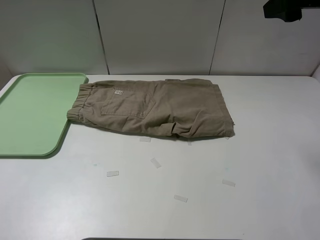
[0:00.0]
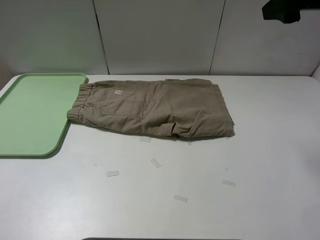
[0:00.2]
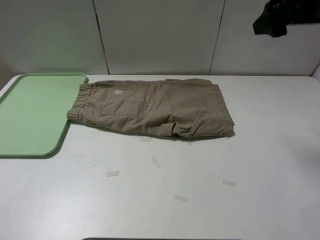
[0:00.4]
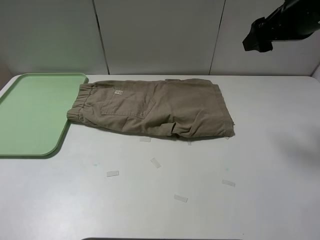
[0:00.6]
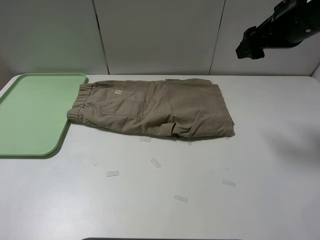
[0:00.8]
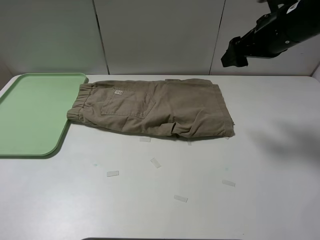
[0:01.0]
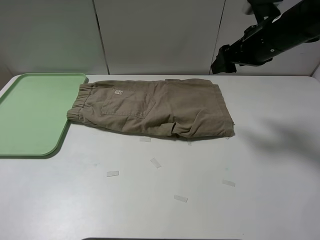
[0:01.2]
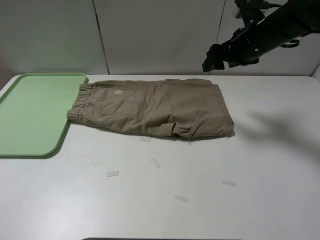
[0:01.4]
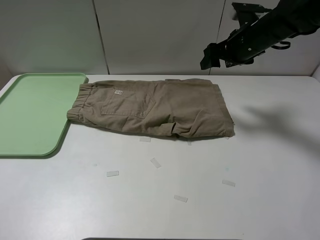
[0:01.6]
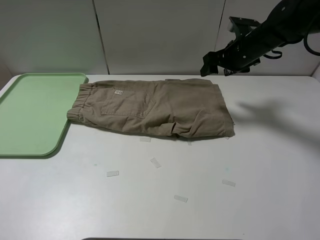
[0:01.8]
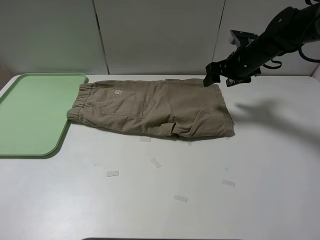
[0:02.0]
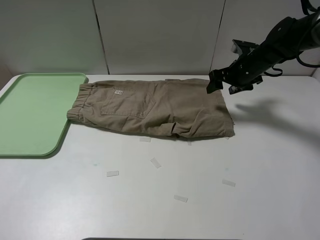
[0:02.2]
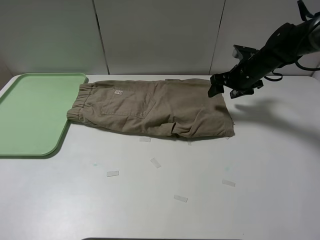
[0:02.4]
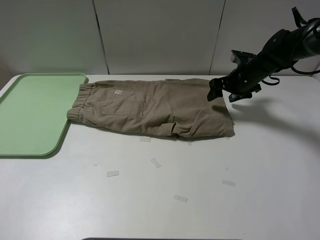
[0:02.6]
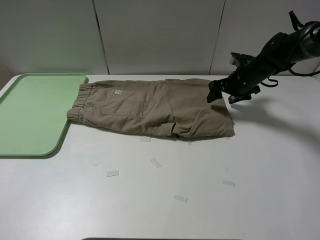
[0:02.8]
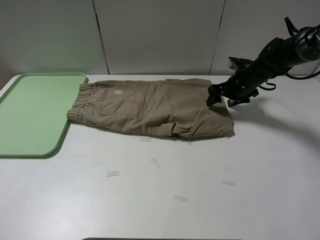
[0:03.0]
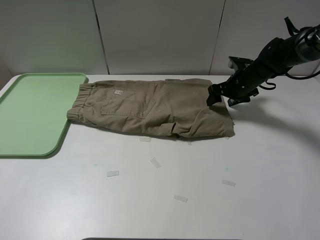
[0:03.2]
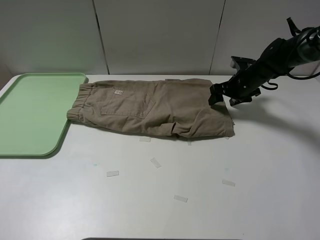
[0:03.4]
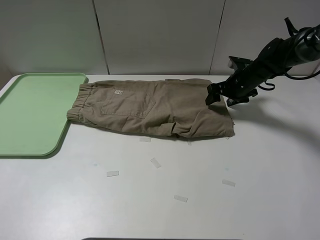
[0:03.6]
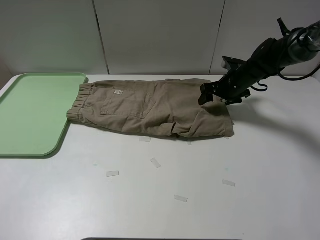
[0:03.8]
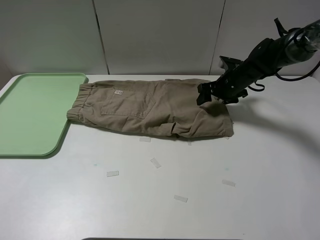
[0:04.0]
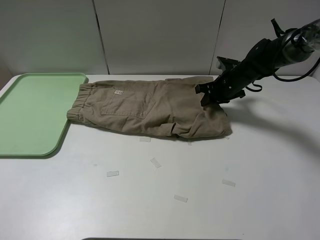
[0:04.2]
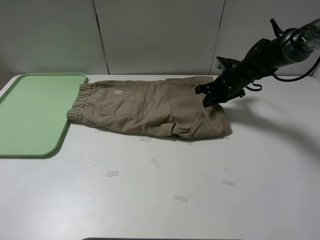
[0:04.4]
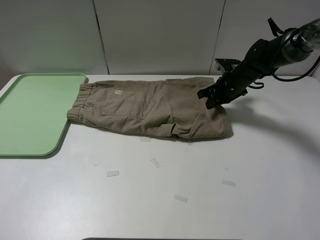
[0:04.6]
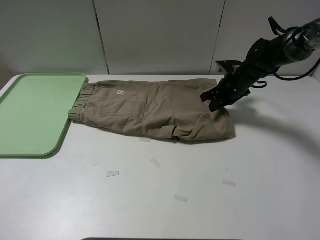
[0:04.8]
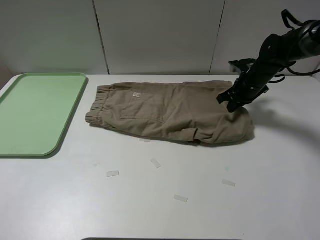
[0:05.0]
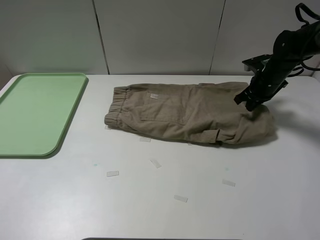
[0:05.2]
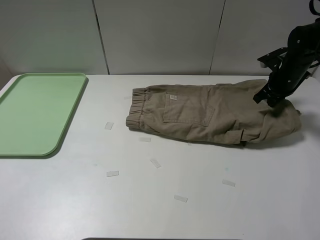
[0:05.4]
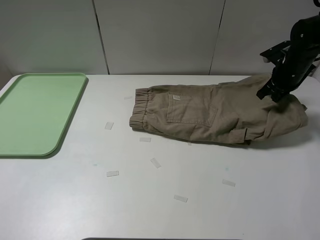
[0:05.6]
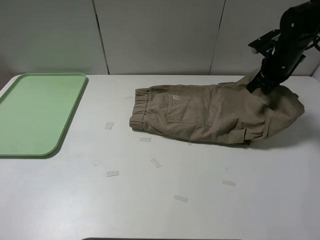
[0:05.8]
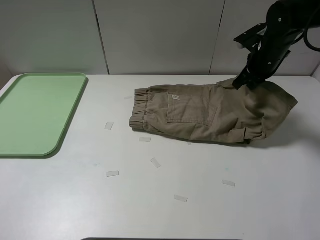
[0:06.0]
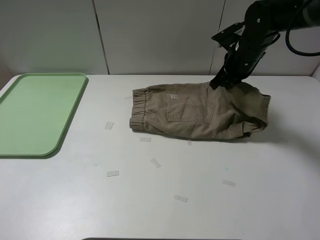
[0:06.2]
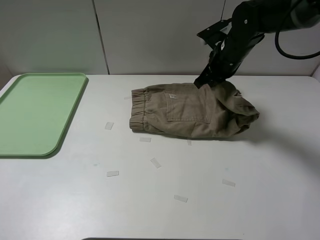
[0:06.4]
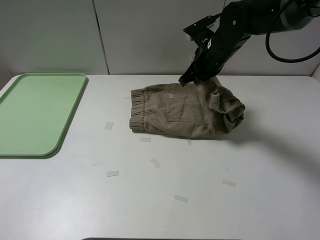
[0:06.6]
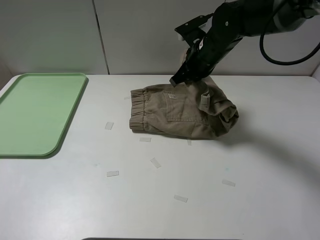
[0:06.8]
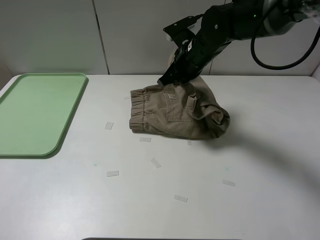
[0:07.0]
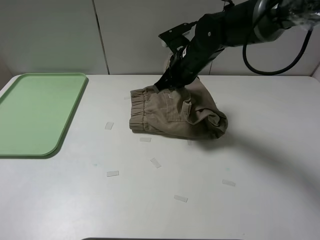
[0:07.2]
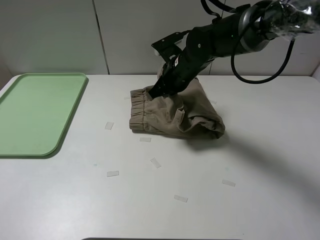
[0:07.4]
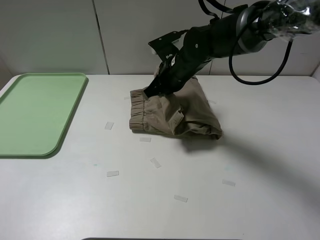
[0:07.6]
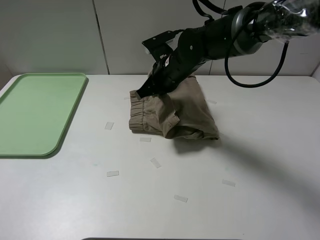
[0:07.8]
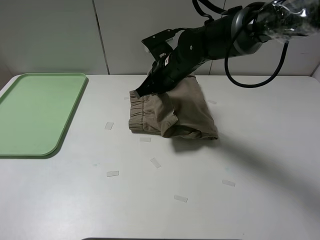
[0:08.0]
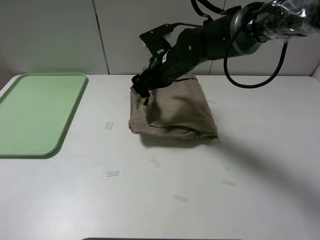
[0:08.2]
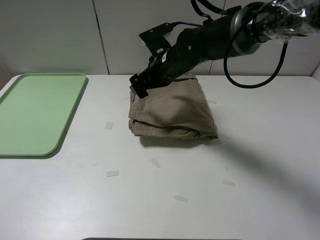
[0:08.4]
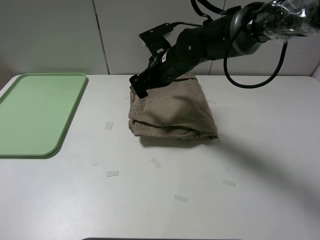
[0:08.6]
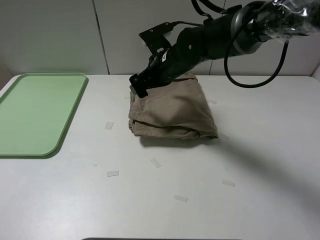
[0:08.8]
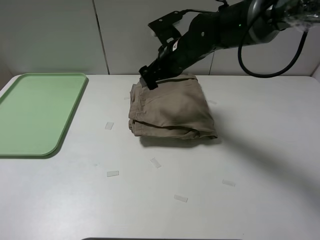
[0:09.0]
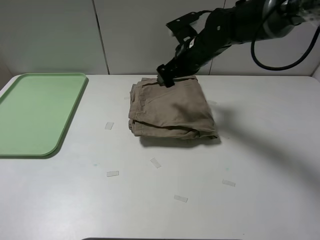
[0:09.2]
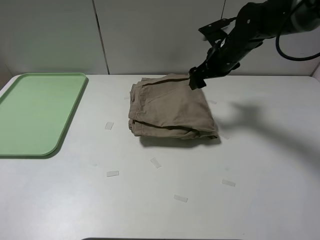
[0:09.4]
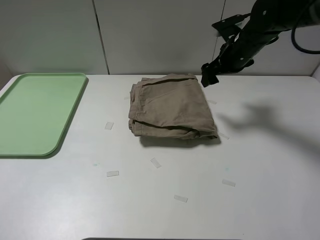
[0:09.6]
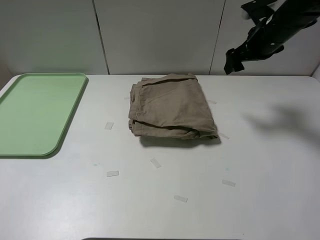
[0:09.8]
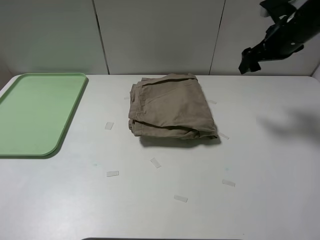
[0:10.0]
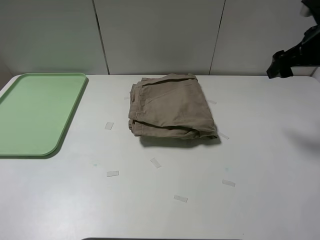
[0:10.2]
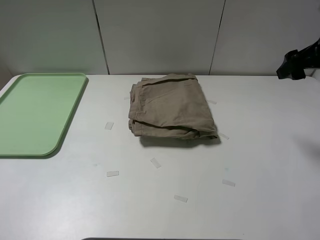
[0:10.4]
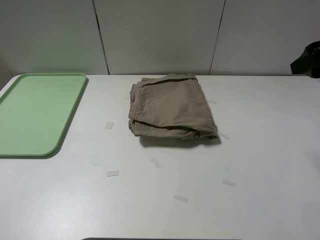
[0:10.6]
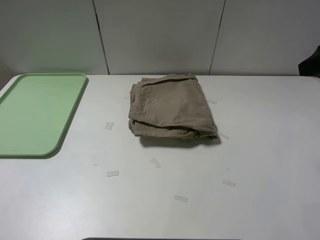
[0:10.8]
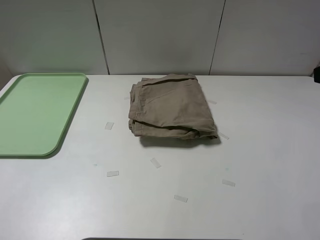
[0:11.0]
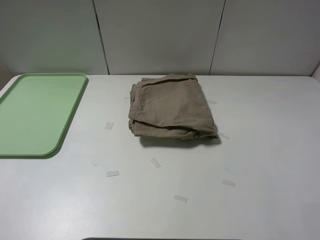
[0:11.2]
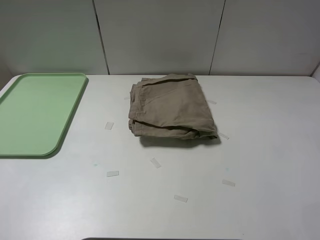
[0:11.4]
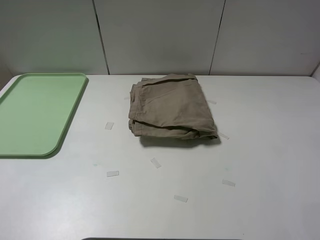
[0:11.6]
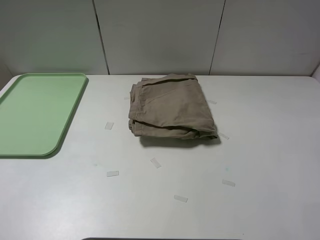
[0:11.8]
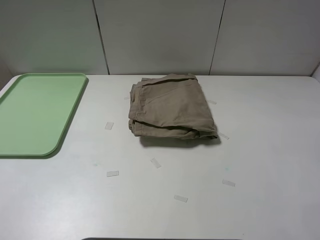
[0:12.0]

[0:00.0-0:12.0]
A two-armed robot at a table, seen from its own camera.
Task of the whole recording: fold the khaki jeans in half with two grippers, then fold them in half again, and use the left claw to place the folded fold khaki jeans on the tray.
Step, 0:00.0 to 0:04.4: Grasp the khaki trousers with the right gripper.
Step, 0:04.6 to 0:08.4: Fold the khaki trousers from right to left with the right gripper.
0:00.0 to 0:01.6: The right gripper moves downward and forward, about 20 cm.
0:01.6 to 0:03.0: The right gripper travels downward by some 15 cm.
0:03.0 to 0:04.4: The right gripper closes its fingers.
0:04.4 to 0:06.0: The right gripper is displaced upward by roughly 10 cm, and reaches roughly 10 cm to the right, then returns.
0:06.0 to 0:07.6: The right gripper is displaced to the left by approximately 20 cm.
0:07.6 to 0:09.0: The right gripper opens up.
0:09.0 to 0:10.4: The right gripper travels to the right by about 25 cm.
0:10.4 to 0:12.0: The right gripper goes approximately 25 cm backward.

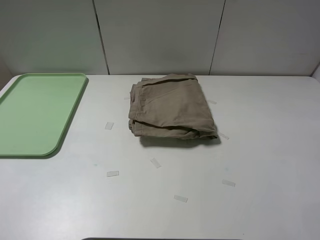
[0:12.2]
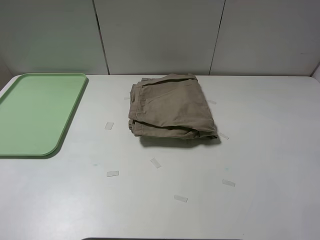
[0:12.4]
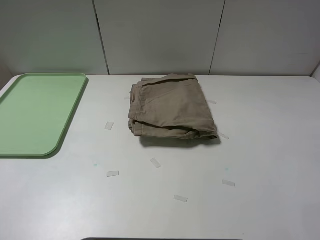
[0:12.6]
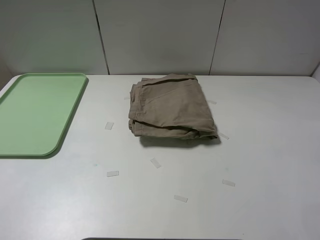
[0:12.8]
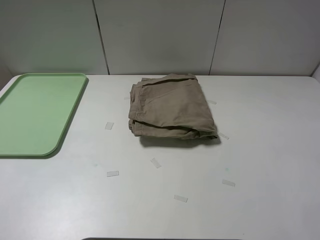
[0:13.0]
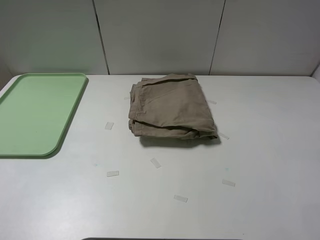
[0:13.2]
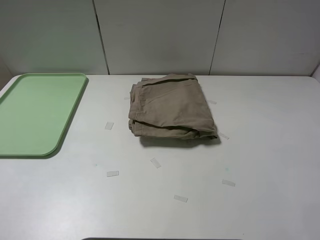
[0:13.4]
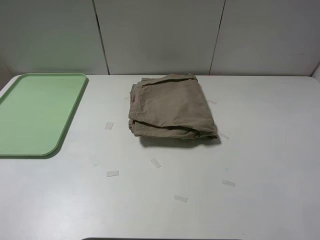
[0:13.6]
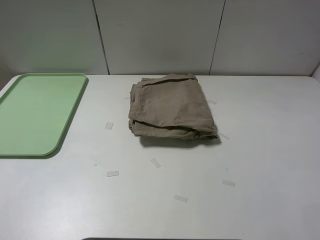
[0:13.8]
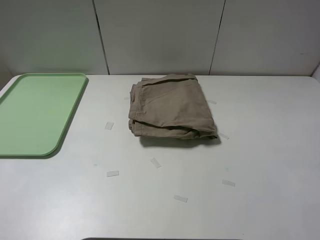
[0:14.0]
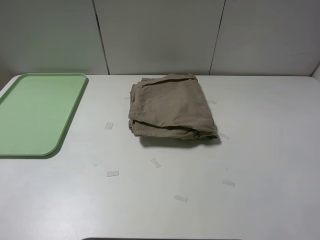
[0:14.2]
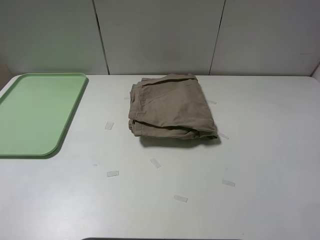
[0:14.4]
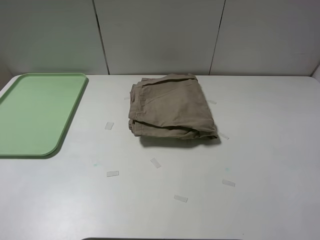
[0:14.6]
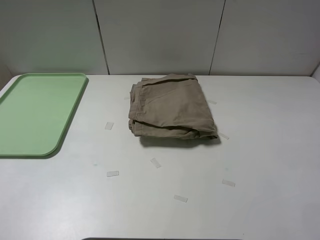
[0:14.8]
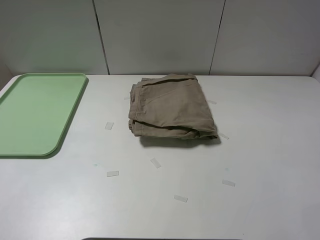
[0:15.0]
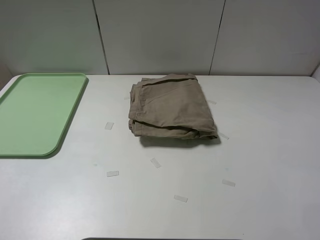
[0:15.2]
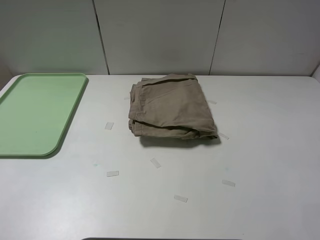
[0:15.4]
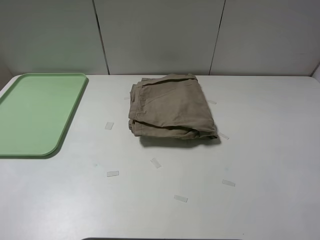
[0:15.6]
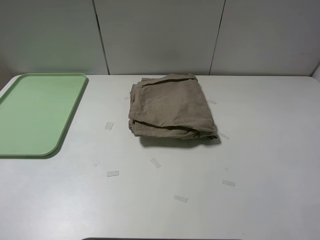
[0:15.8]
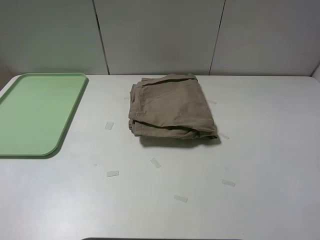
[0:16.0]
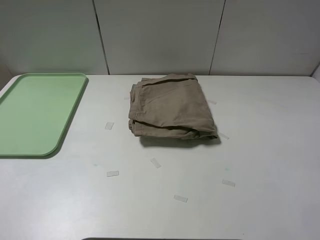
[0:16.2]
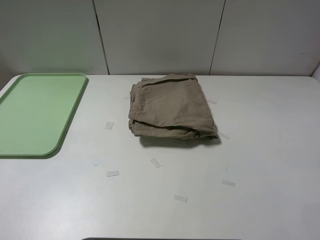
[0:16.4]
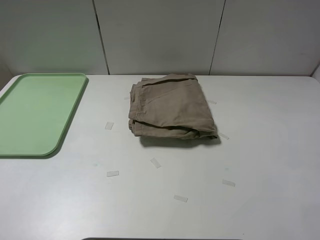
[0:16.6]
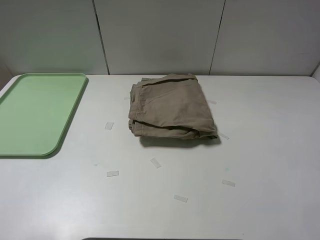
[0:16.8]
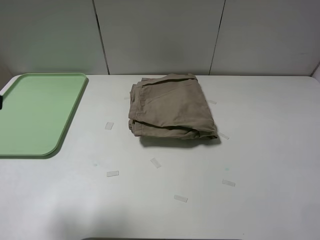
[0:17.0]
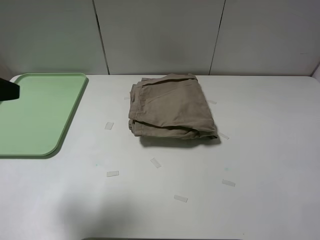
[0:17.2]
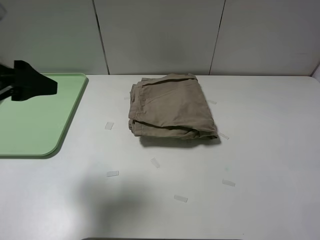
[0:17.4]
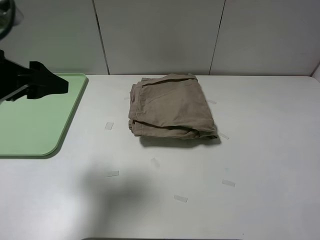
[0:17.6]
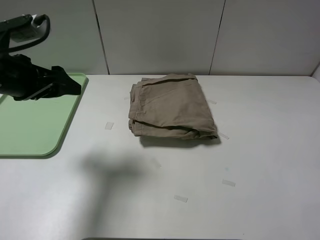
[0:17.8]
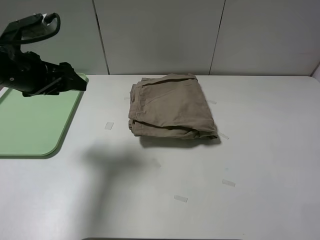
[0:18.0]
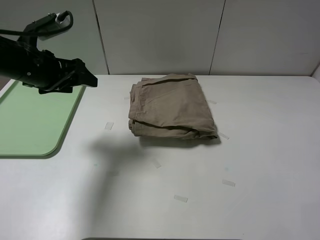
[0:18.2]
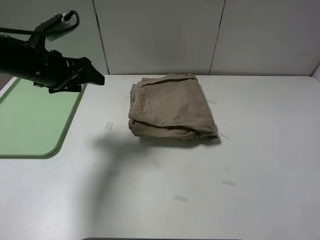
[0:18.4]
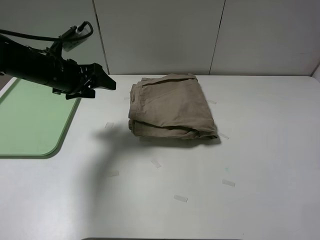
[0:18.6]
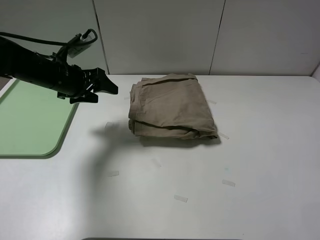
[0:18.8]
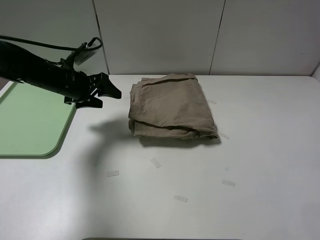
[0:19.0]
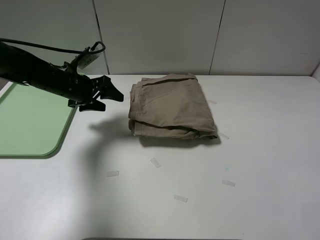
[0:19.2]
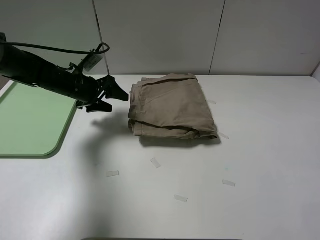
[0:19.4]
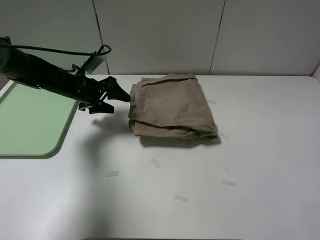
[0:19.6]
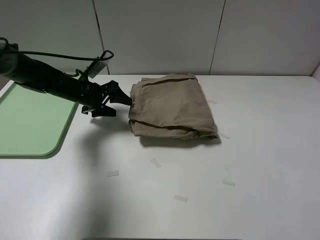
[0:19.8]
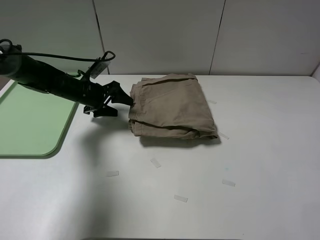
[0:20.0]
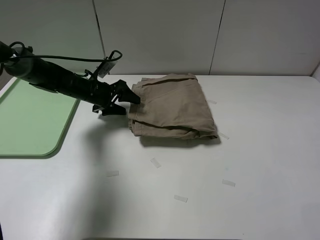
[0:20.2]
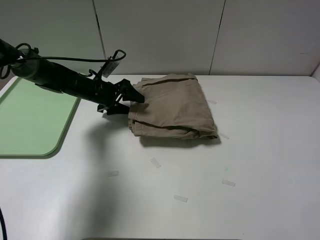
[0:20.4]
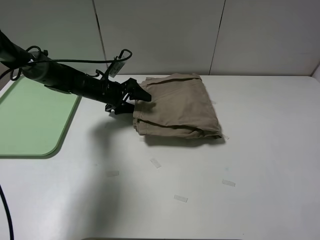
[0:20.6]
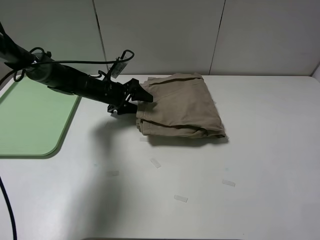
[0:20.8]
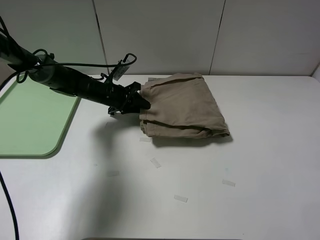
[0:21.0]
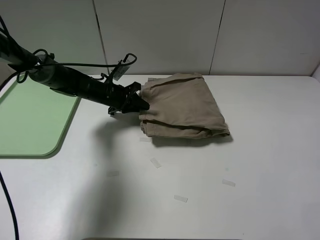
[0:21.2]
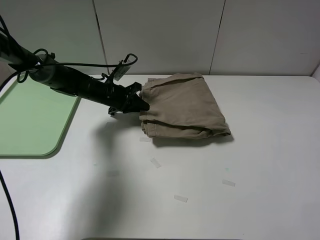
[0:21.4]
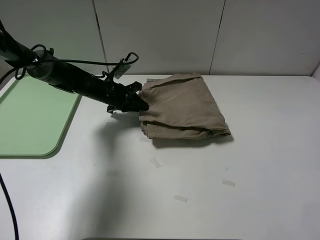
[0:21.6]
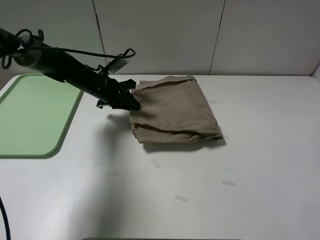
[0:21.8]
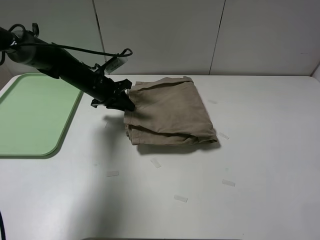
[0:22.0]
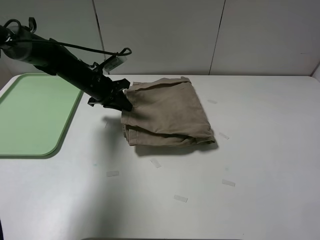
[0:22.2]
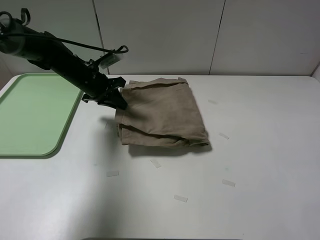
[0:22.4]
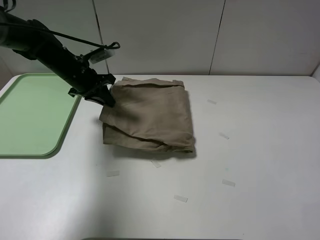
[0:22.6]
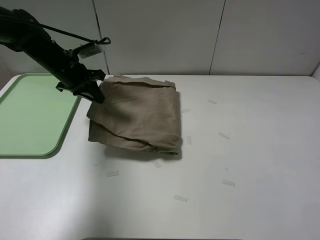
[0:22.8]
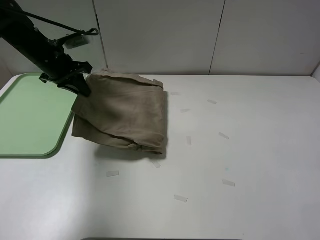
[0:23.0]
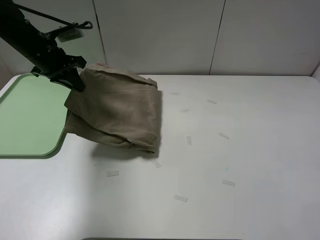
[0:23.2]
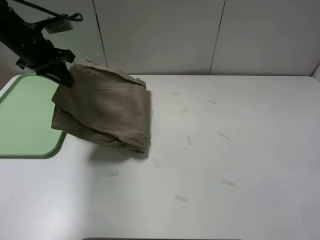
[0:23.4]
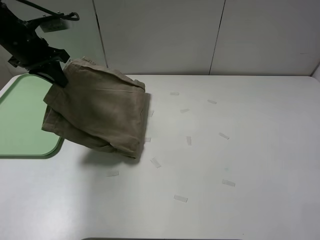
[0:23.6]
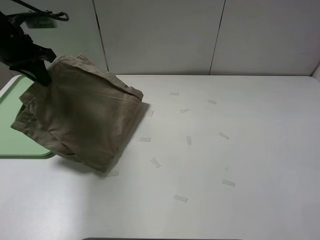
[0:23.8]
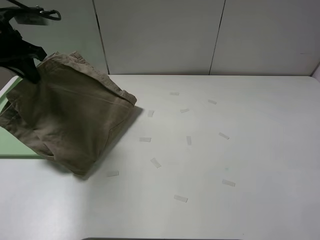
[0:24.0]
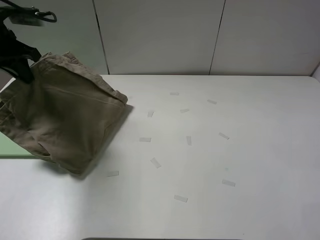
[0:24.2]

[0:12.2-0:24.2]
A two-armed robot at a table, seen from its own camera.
Task of the whole recording: fold the khaki jeans in half with two grippers, then fold them in half again, and use the left claw to place the folded fold khaki jeans on the tray.
Step, 0:12.2 to 0:21.8: Grasp the khaki trousers with the left gripper.
0:13.8 to 0:15.2: Both grippers stay put.
0:16.6 to 0:18.2: The left gripper moves forward, about 25 cm.
0:18.2 to 0:19.8: The left gripper moves downward and forward, roughly 15 cm.
0:19.8 to 0:21.2: The left gripper moves to the right, some 5 cm, and closes.
0:21.2 to 0:22.6: The left gripper travels upward and to the left by approximately 10 cm.
0:22.6 to 0:24.2: The left gripper shifts some 15 cm upward and to the left.
